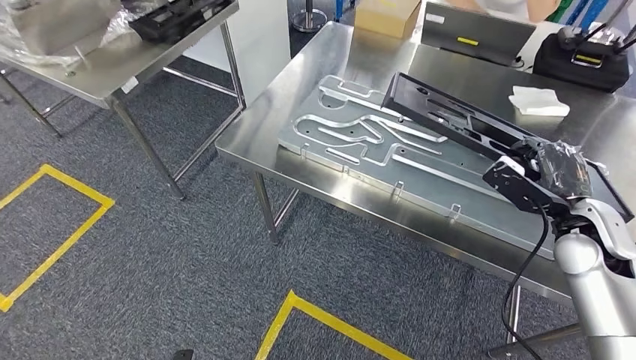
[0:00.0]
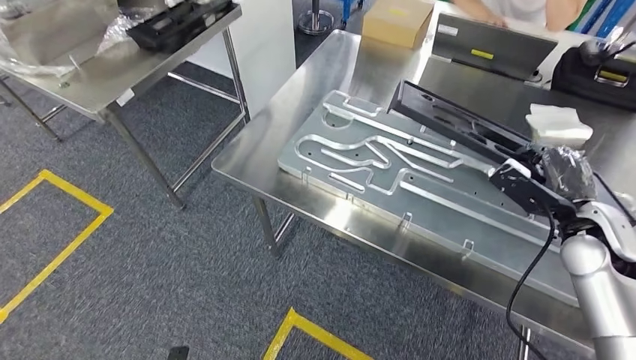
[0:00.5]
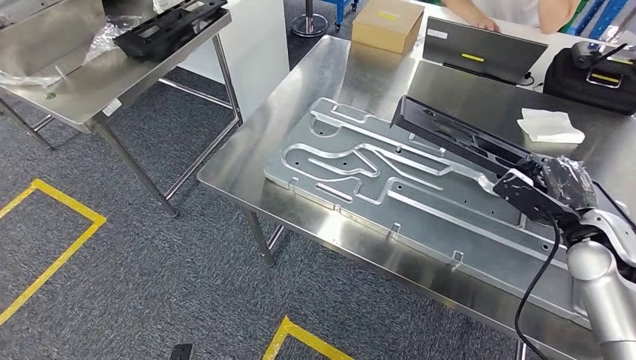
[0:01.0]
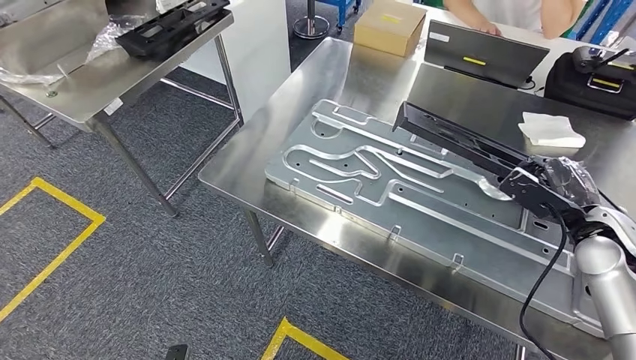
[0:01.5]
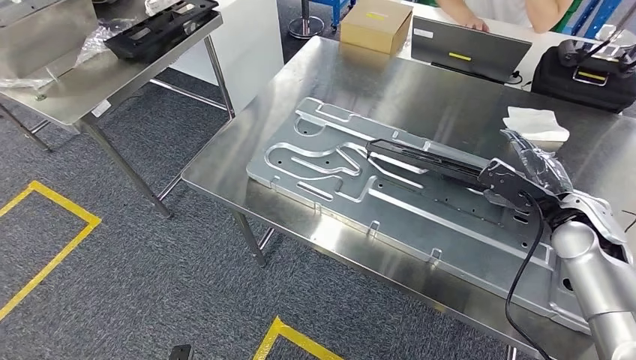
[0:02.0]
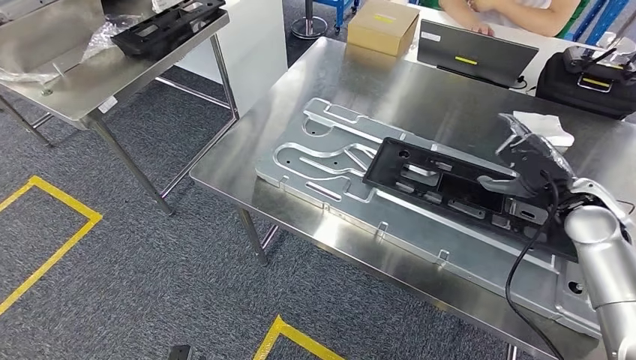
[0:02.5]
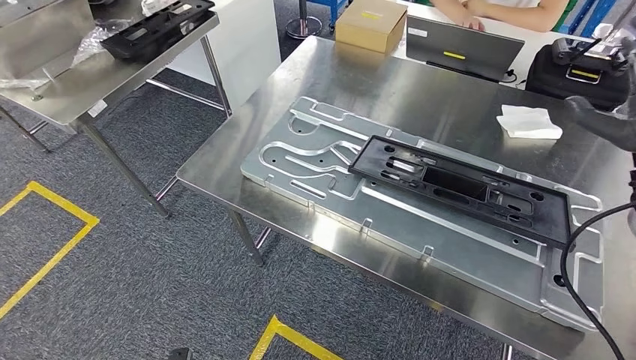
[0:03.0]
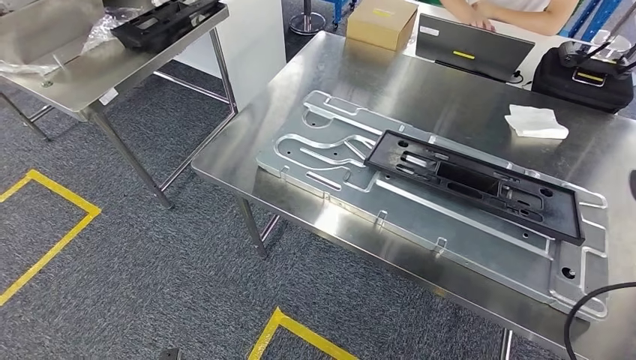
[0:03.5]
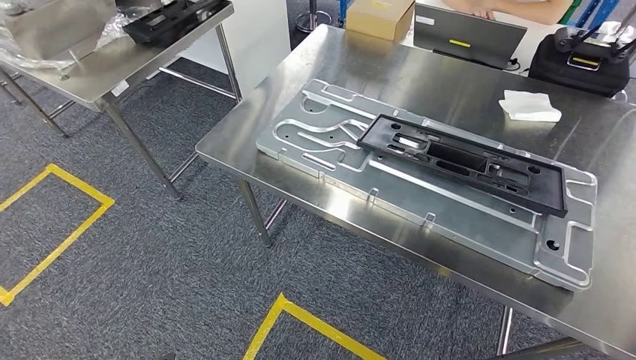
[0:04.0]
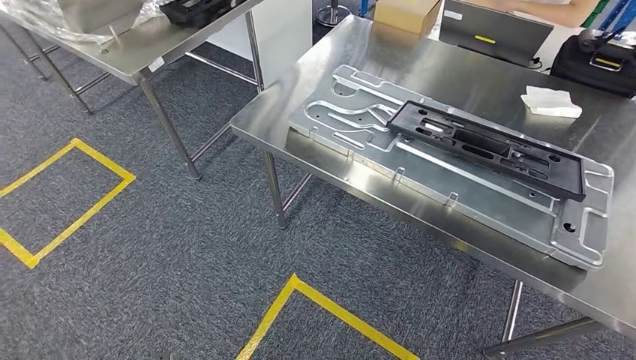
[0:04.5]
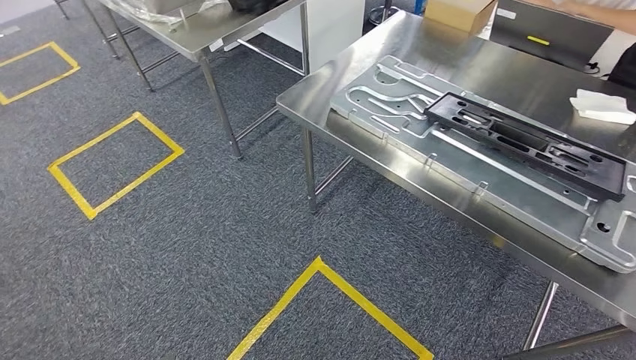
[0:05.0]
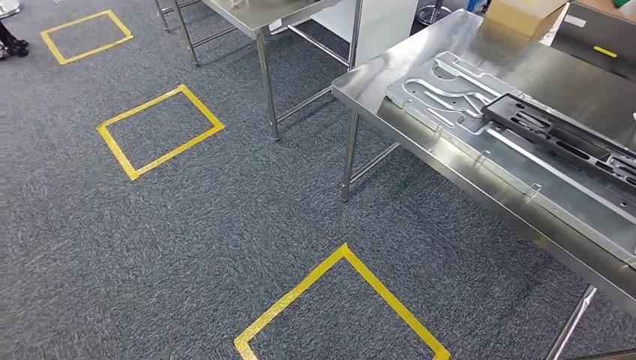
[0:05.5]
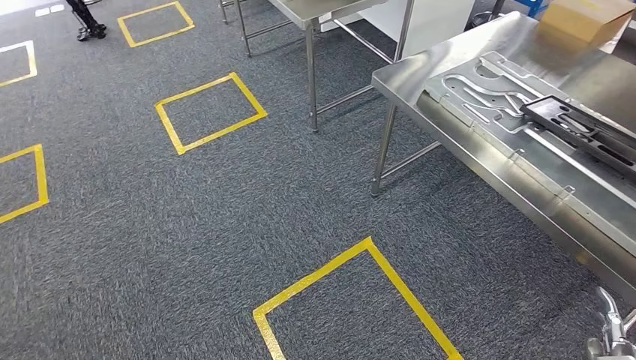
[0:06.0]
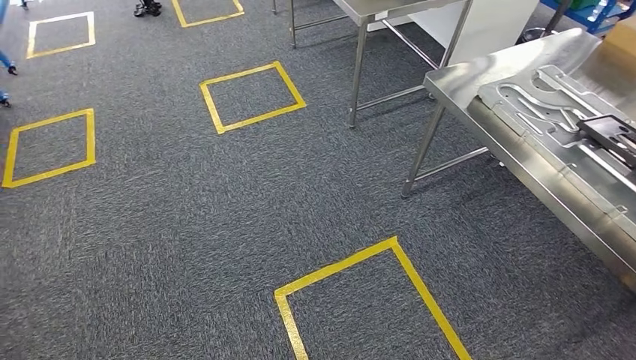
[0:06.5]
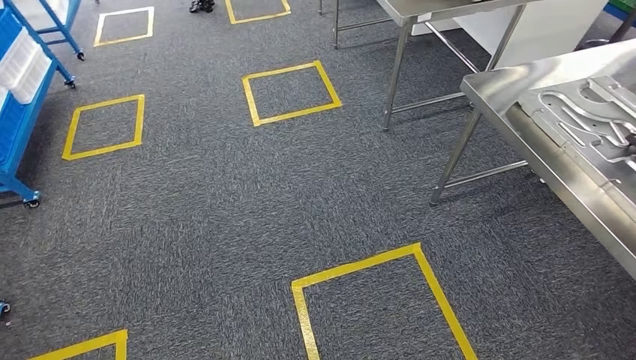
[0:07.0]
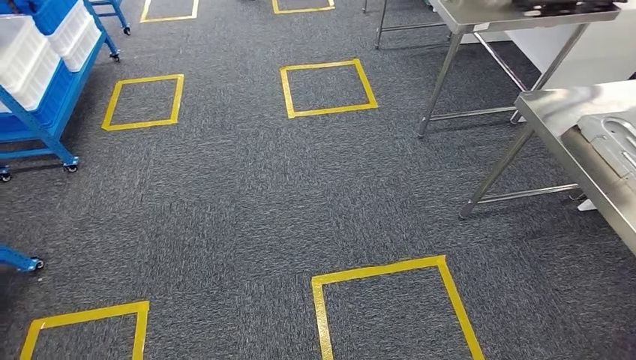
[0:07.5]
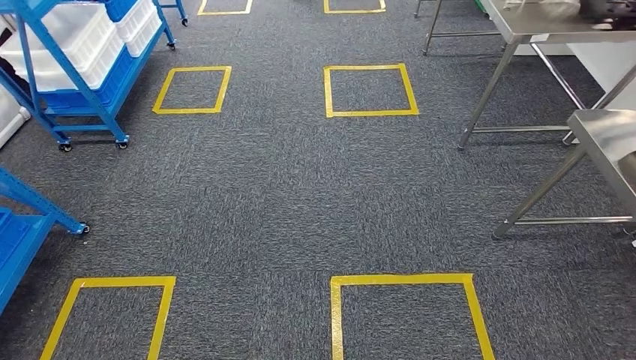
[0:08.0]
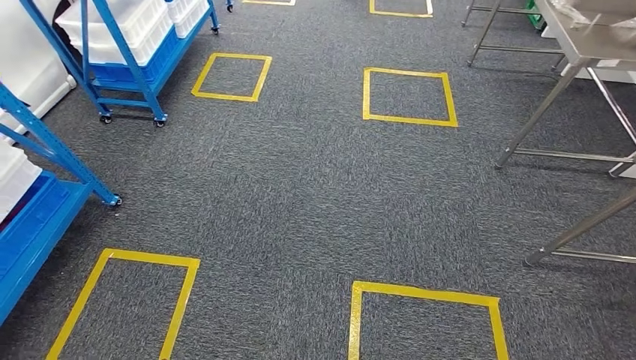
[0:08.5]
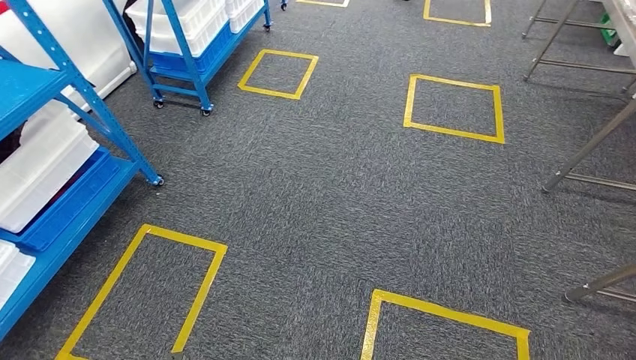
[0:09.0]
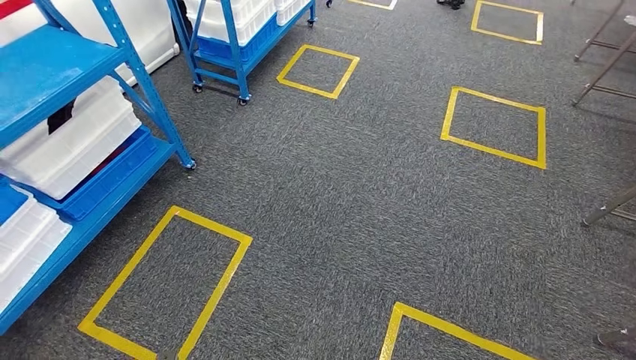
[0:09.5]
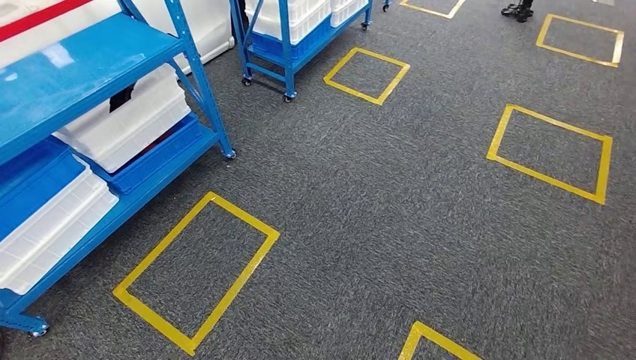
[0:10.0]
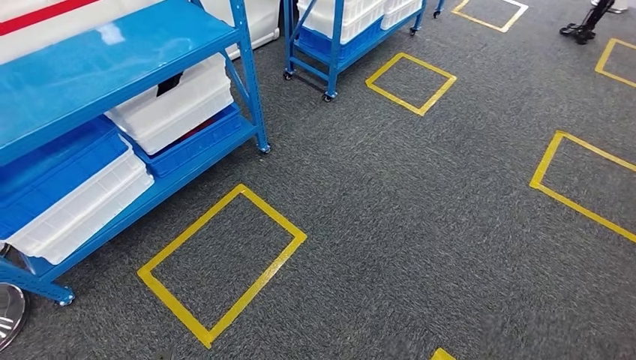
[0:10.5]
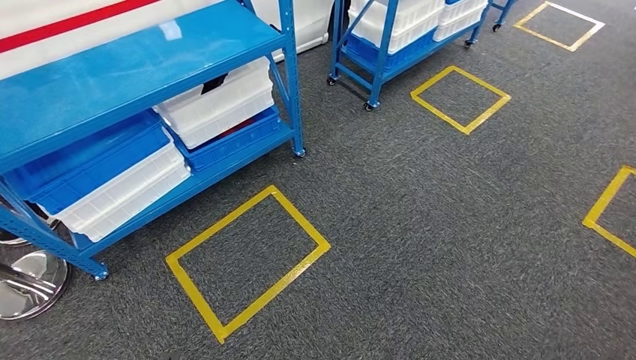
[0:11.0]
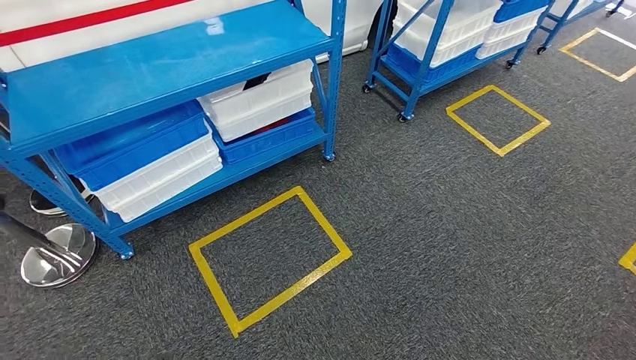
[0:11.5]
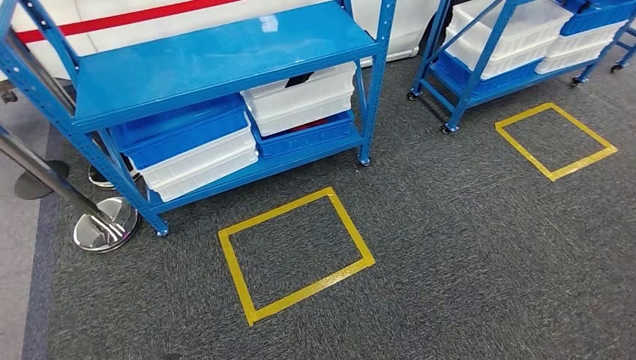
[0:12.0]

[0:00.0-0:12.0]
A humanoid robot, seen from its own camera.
Step, 0:00.0 to 0:04.5: Insert the large material into the corresponding slot on the workbench.

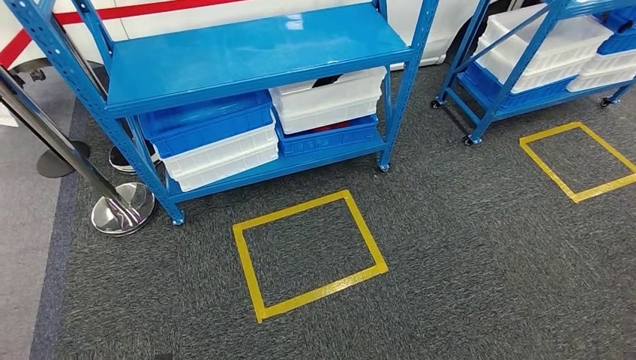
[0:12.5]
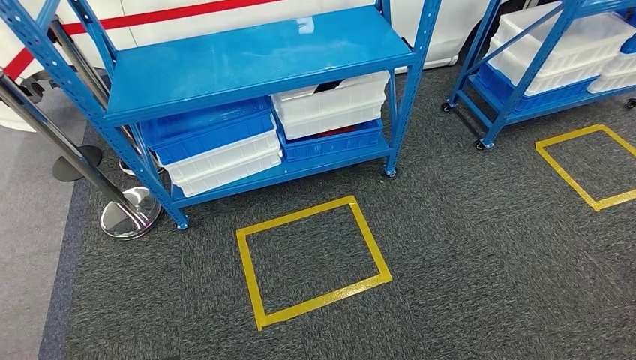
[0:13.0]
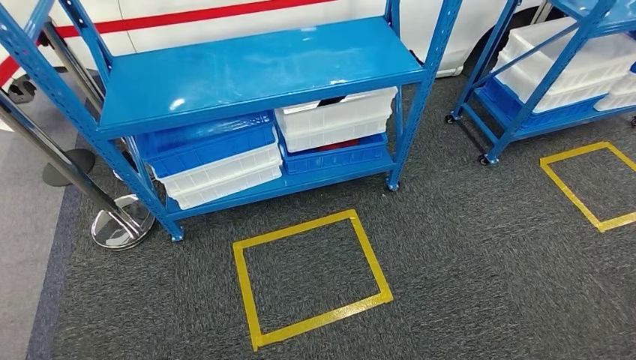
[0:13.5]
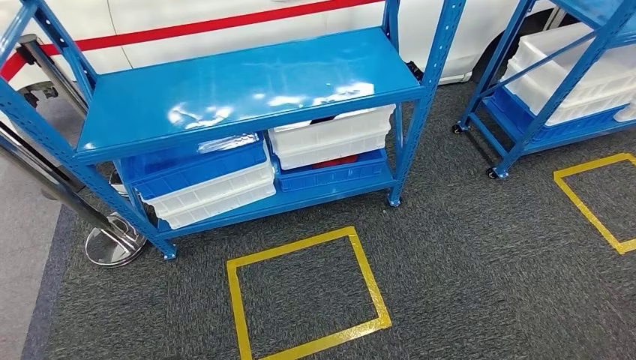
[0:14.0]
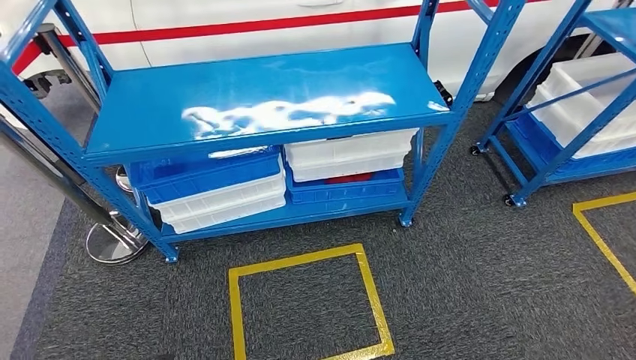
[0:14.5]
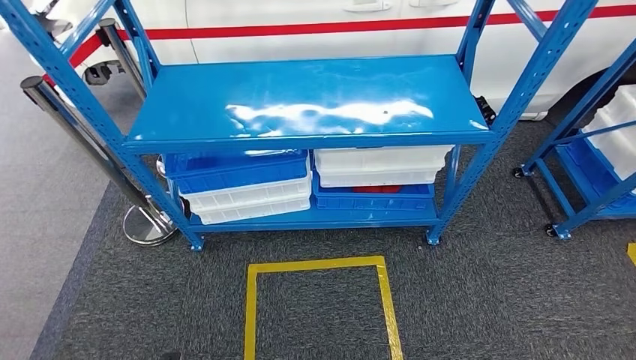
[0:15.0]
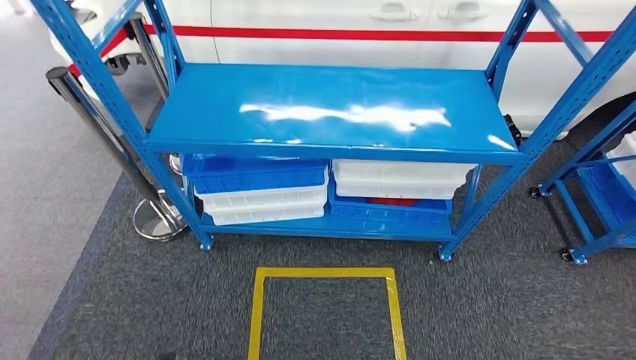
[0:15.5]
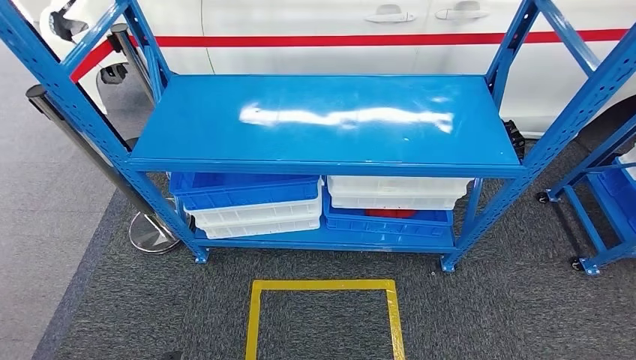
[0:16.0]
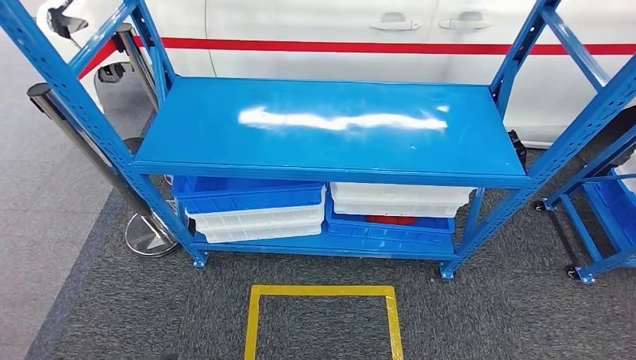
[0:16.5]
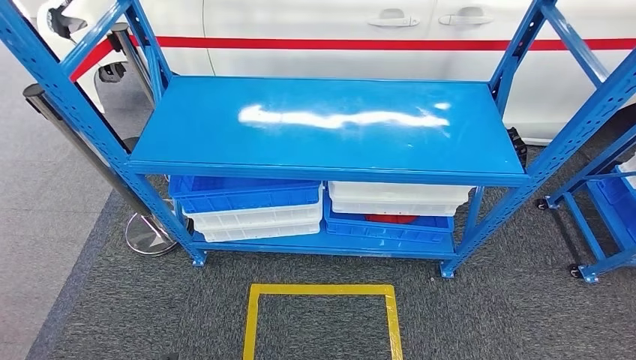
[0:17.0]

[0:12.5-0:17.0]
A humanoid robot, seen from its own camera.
Step, 0:12.5 to 0:17.0: Move to the initial position of the shelf.
